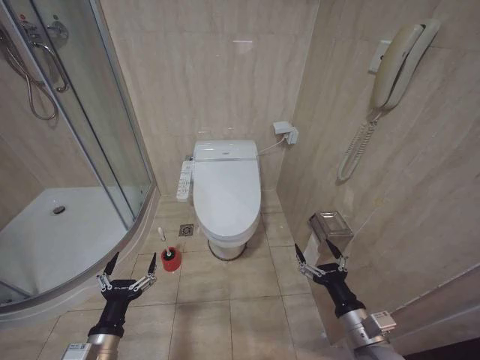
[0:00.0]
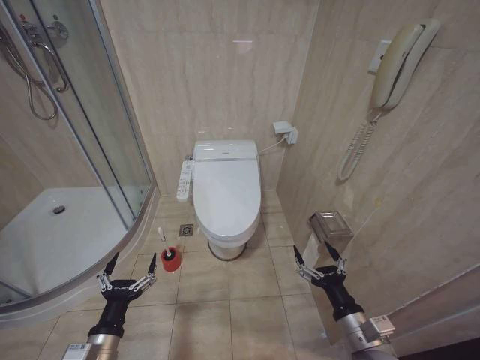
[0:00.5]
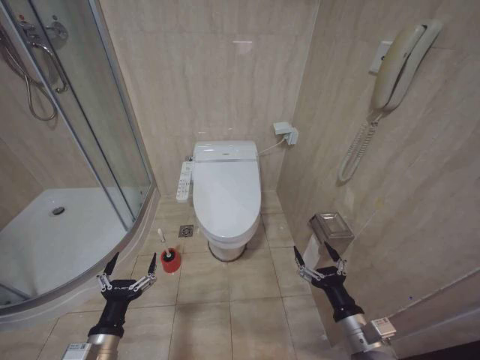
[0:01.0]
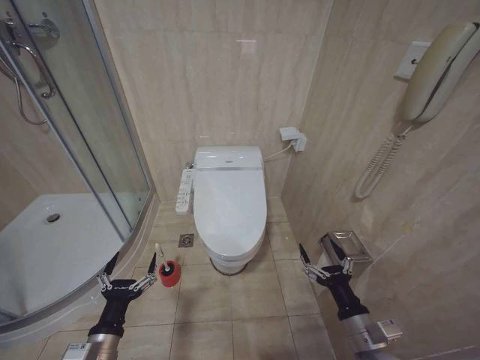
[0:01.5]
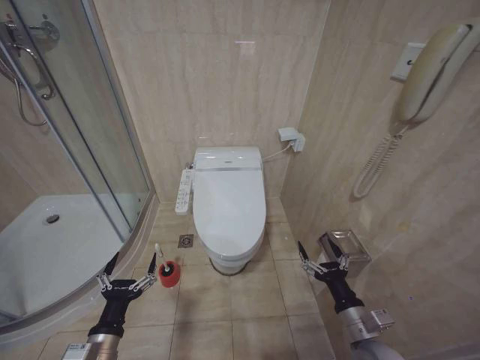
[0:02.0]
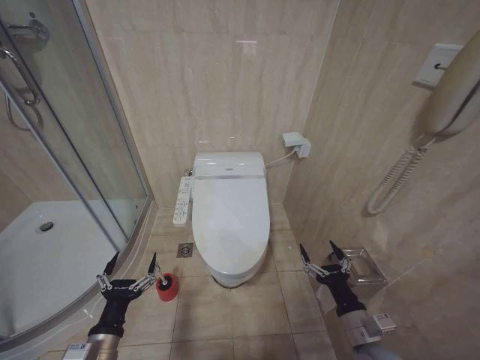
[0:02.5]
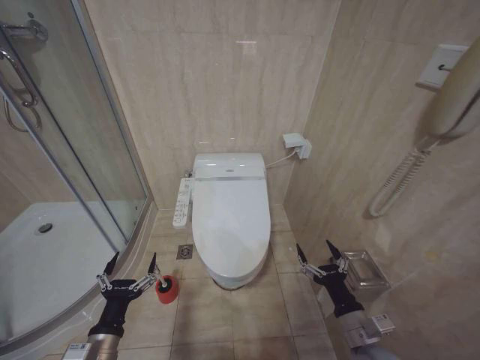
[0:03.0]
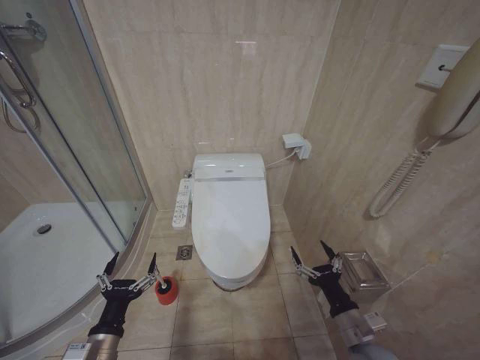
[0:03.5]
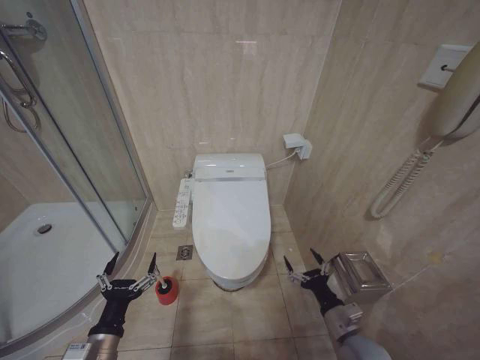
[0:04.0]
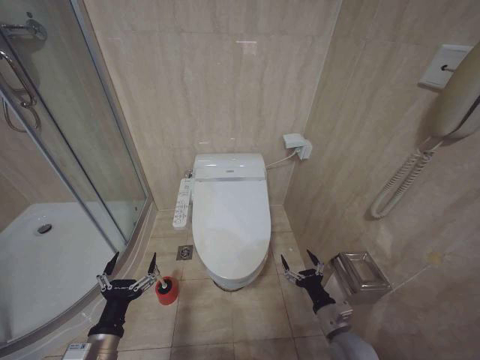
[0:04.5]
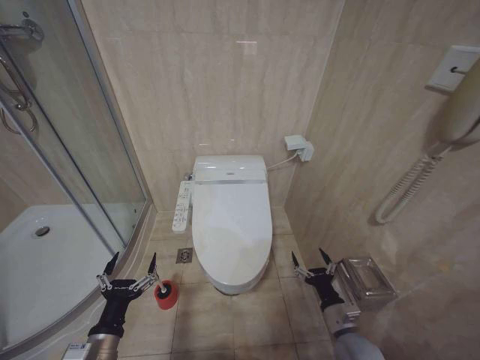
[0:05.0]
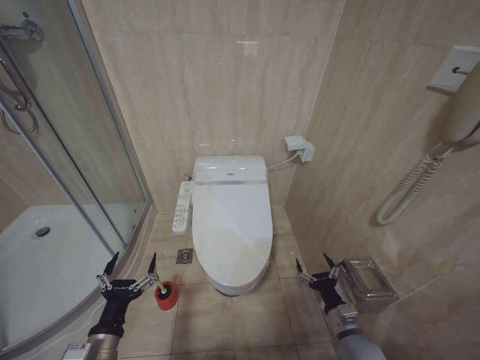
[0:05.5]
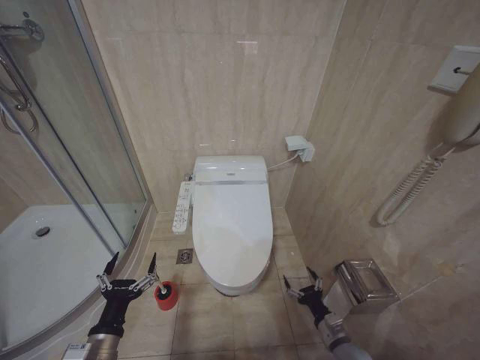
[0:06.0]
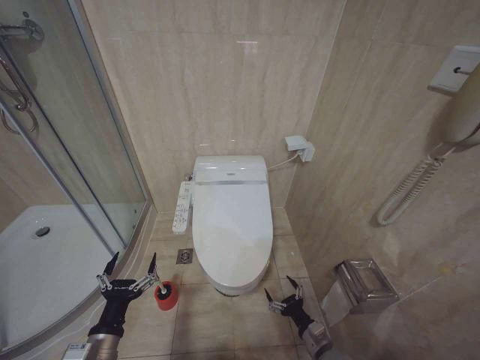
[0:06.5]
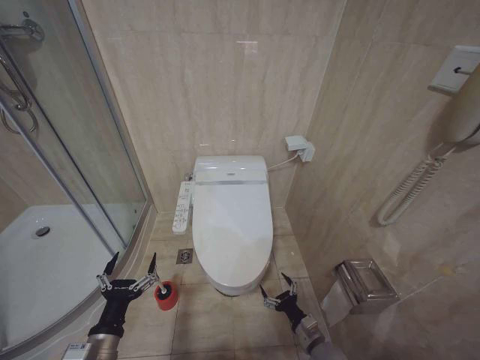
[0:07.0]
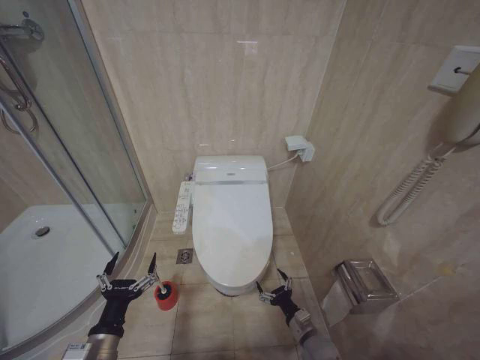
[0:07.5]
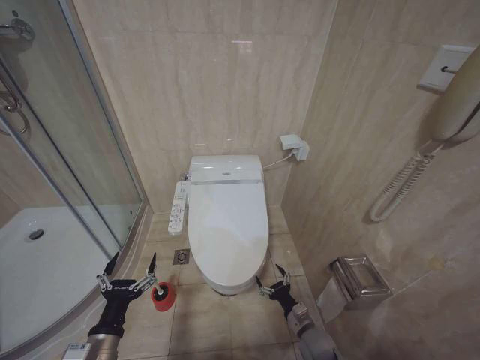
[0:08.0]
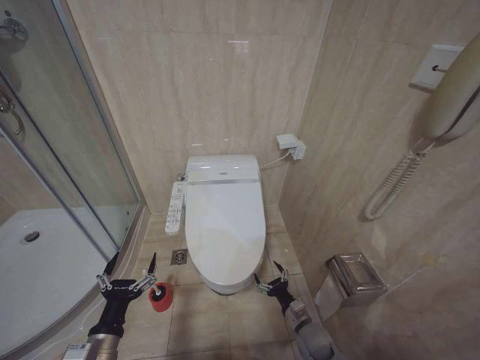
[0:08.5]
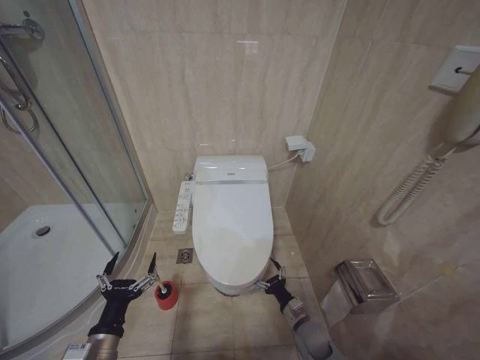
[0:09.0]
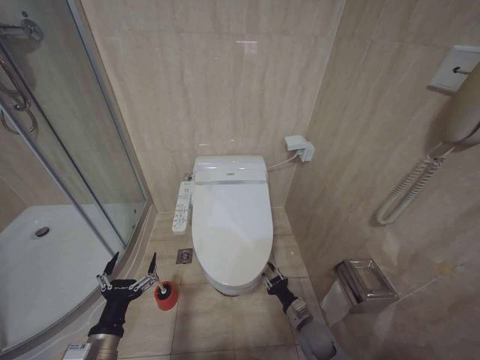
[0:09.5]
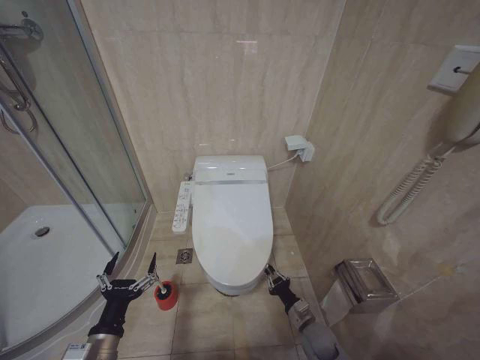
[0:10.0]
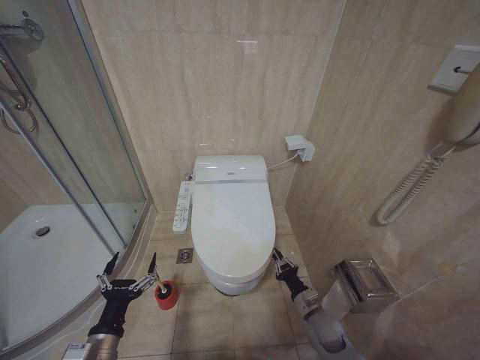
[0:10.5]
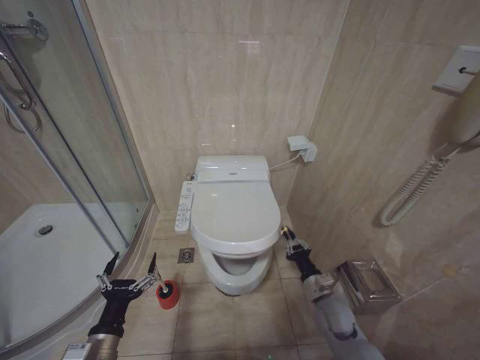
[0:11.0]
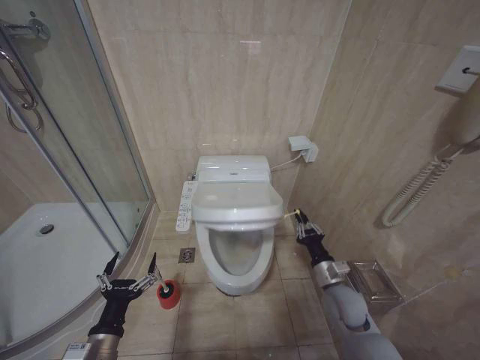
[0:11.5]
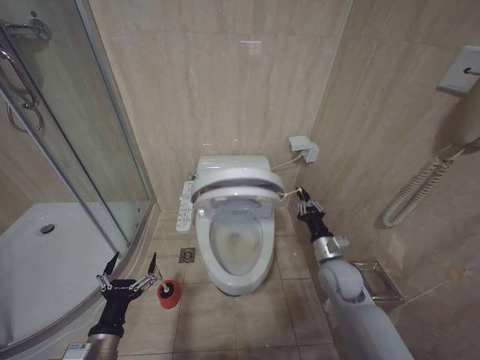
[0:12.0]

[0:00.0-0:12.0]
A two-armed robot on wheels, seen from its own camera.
Task of the whole recording: Open the toilet lid, clean the toilet bowl with a toilet brush, close the toilet lid, and flush.
0:02.0 to 0:04.0: The right gripper changes place by about 5 cm.
0:04.0 to 0:06.0: The right gripper travels downward by some 10 cm.
0:06.0 to 0:08.0: The right gripper travels to the left, downward and forward by about 10 cm.
0:08.0 to 0:10.0: The right gripper closes its fingers.
0:10.0 to 0:12.0: The right gripper shifts some 20 cm upward.

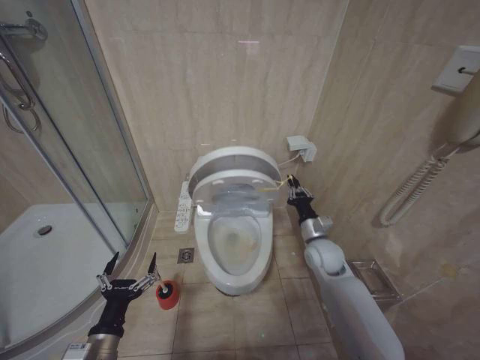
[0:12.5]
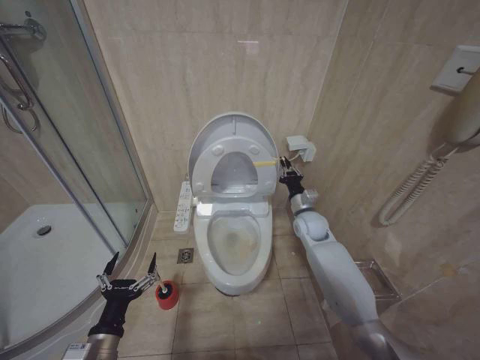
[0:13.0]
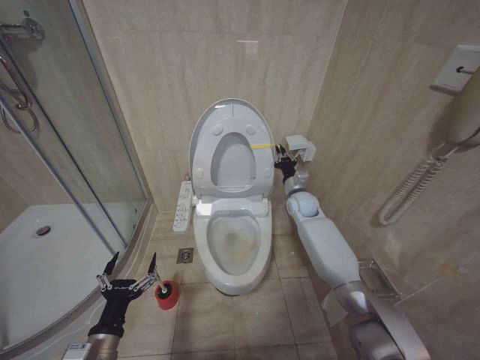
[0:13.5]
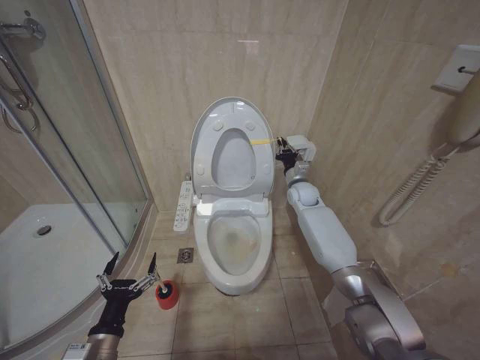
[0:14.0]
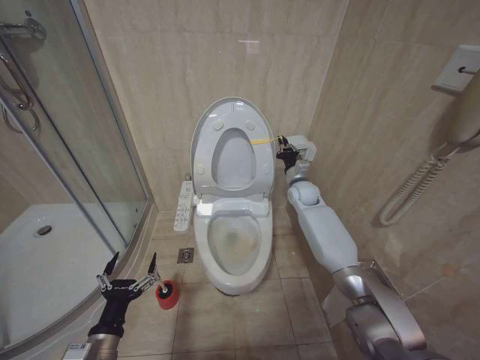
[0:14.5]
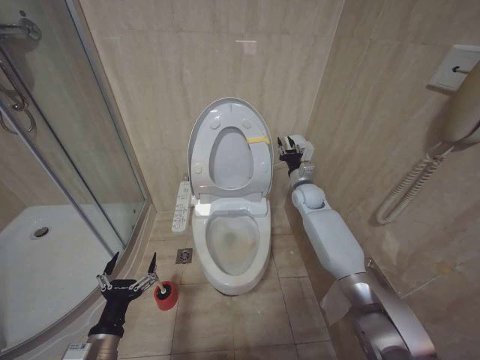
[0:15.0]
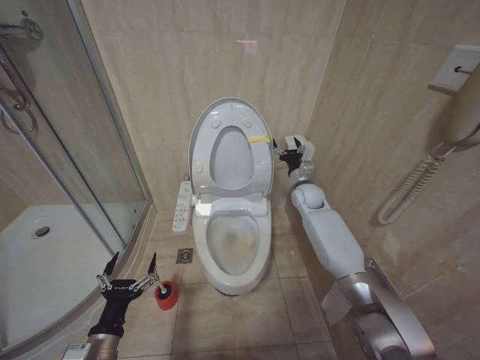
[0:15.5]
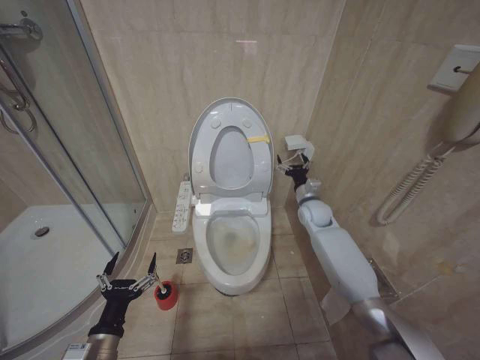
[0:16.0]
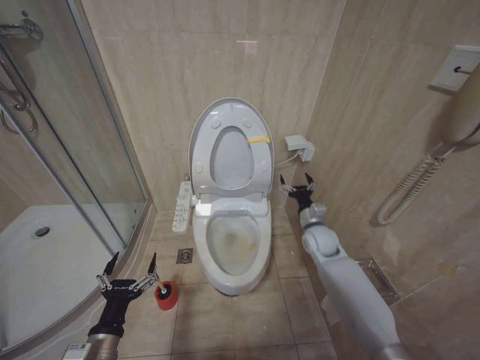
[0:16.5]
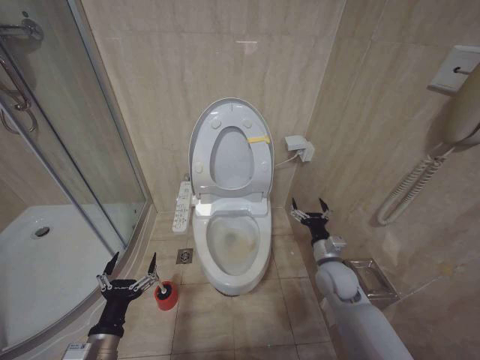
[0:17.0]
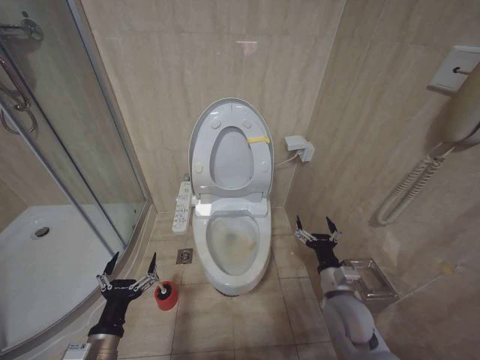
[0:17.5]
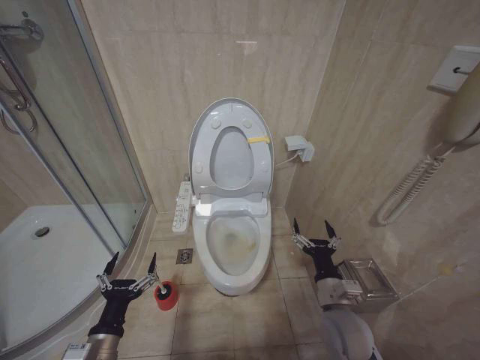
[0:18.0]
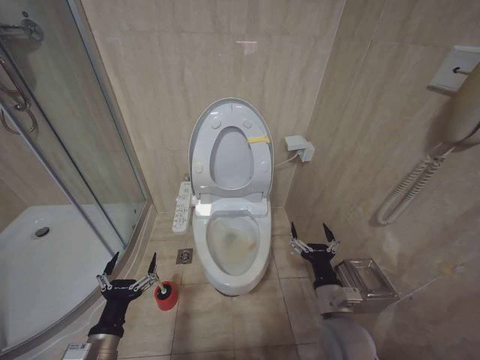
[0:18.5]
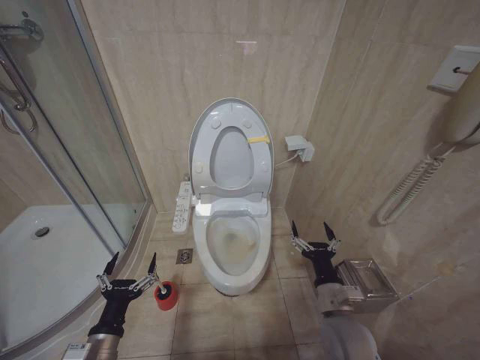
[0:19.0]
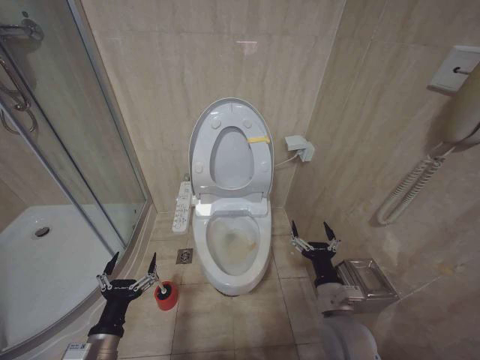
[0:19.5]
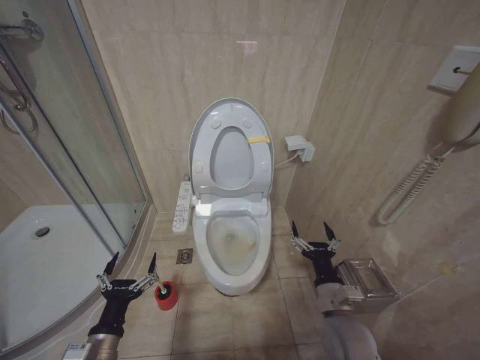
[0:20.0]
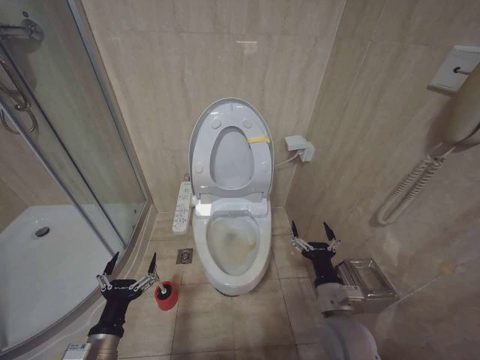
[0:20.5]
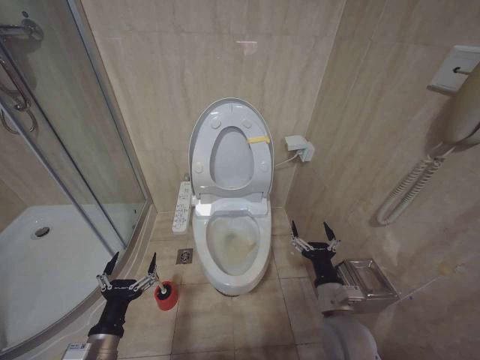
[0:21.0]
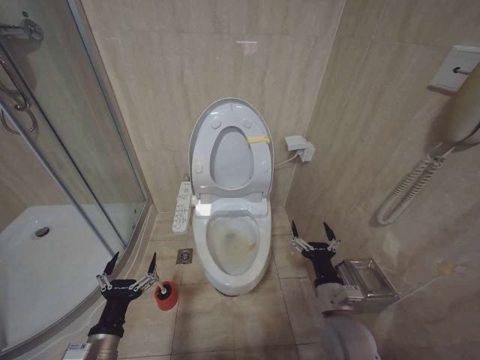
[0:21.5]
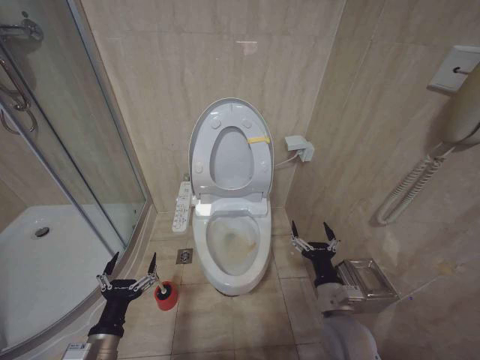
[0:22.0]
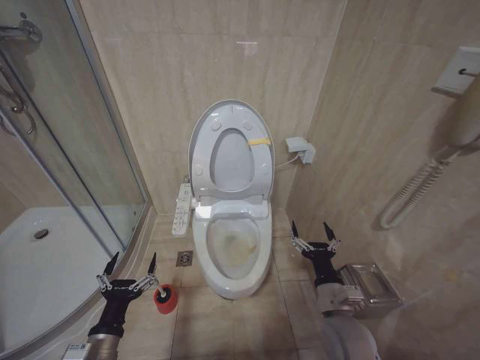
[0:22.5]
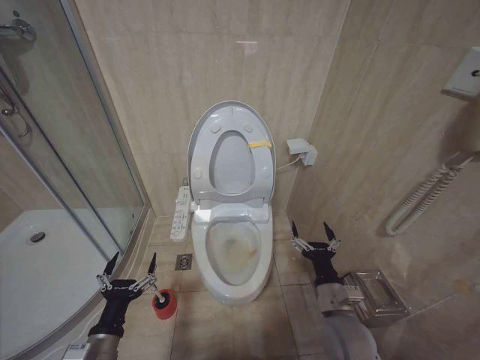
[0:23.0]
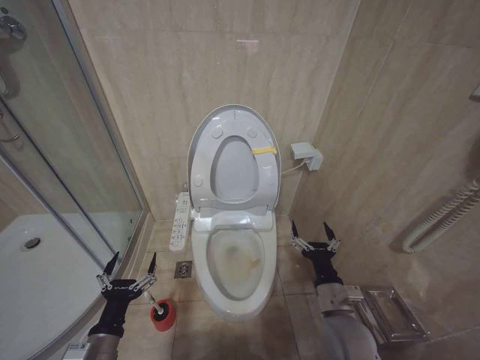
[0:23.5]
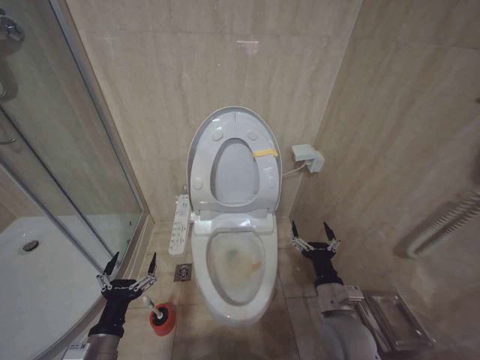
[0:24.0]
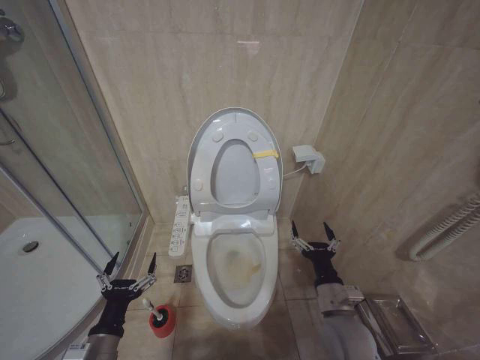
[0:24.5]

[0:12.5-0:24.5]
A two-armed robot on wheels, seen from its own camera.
Task of the whole recording: Open the toilet lid, clean the toilet bowl with a toilet brush, close the toilet lid, and flush.
0:12.5 to 0:14.5: The right gripper moves forward and upward, approximately 20 cm.
0:14.5 to 0:16.5: The right gripper goes about 15 cm backward and downward, and opens.
0:16.5 to 0:18.5: The right gripper goes roughly 25 cm backward.
0:18.5 to 0:24.5: The two grippers keep their place.

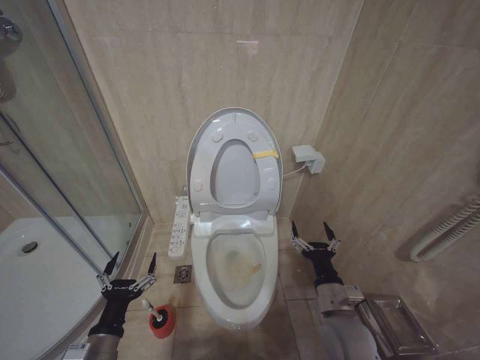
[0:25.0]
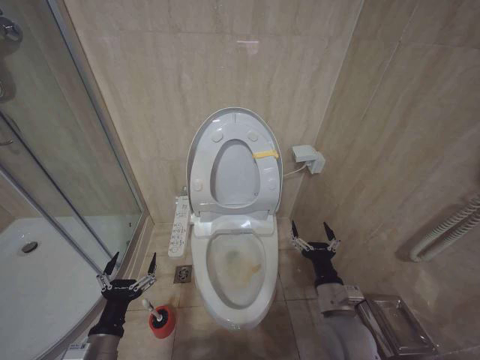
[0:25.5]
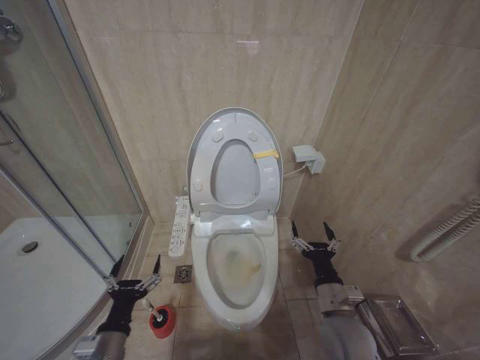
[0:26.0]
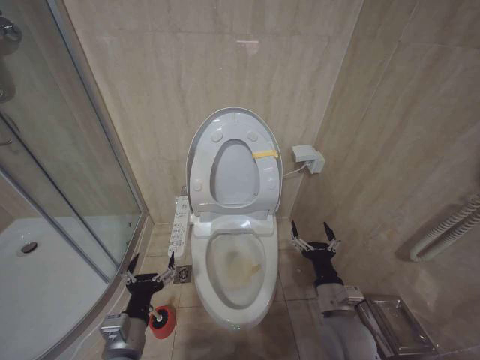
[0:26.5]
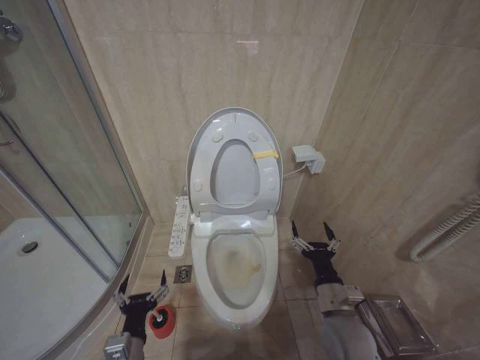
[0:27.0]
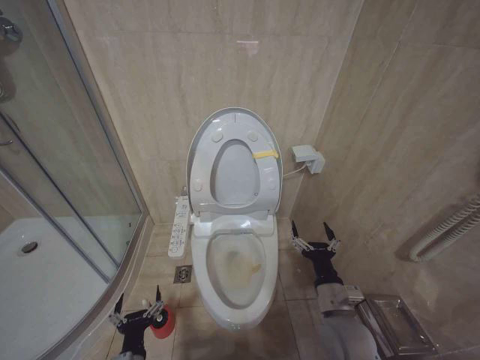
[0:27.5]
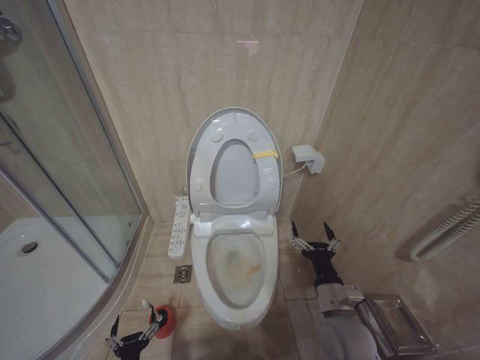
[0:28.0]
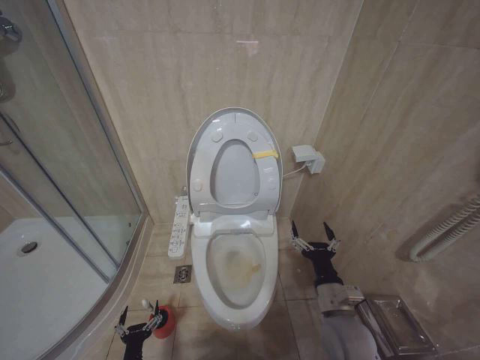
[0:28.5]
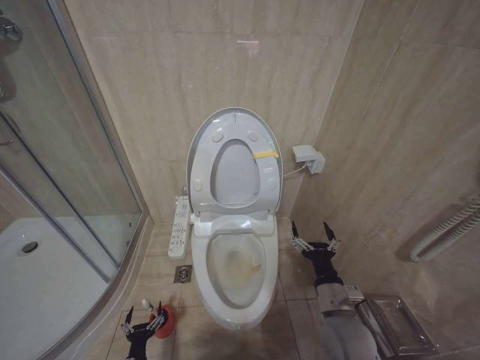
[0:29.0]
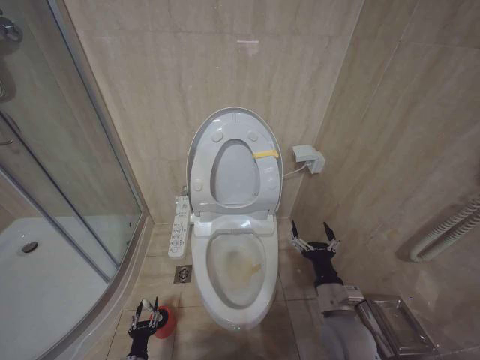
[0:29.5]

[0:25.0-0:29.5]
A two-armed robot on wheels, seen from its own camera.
Task of the whole recording: Open the toilet lid, clean the toilet bowl with a toilet brush, close the toilet lid, and flush.
0:25.0 to 0:27.0: The left gripper shifts about 5 cm to the right.
0:27.0 to 0:29.5: The left gripper is displaced downward by roughly 25 cm.
